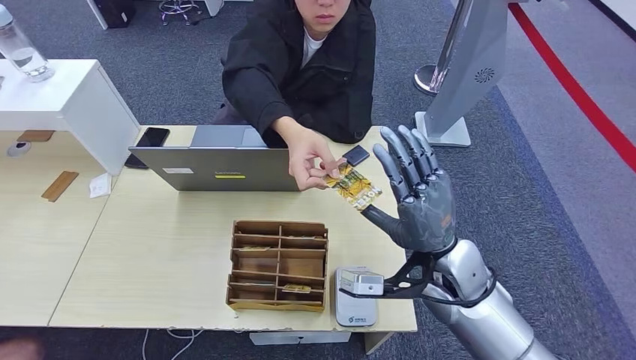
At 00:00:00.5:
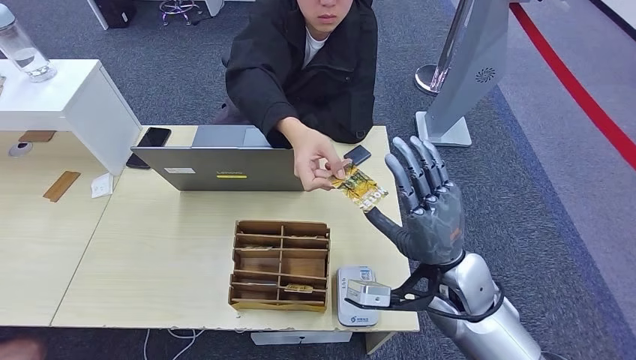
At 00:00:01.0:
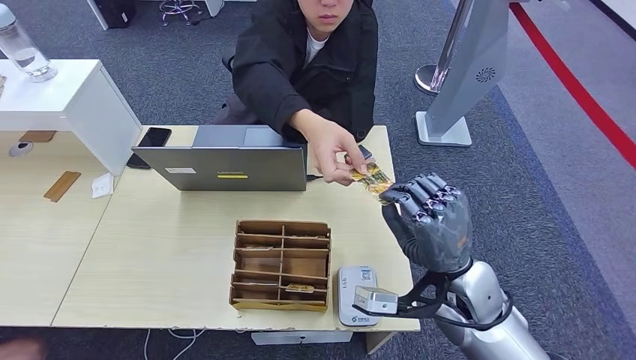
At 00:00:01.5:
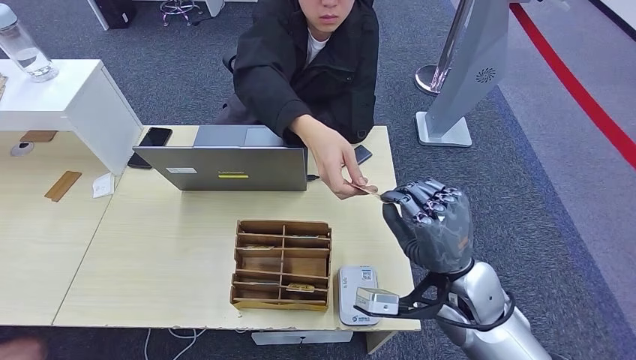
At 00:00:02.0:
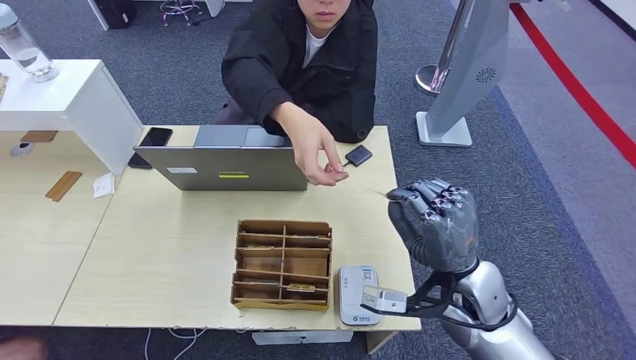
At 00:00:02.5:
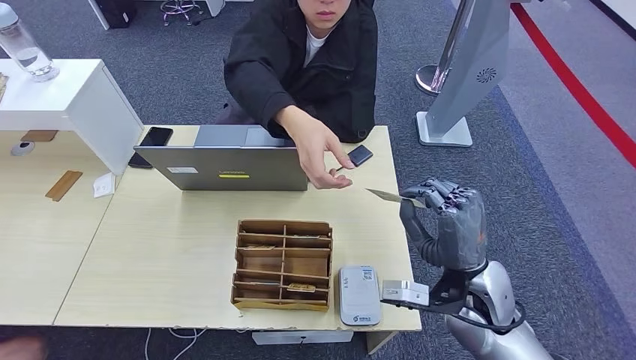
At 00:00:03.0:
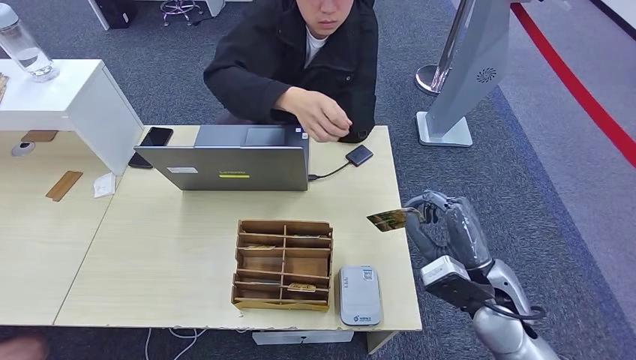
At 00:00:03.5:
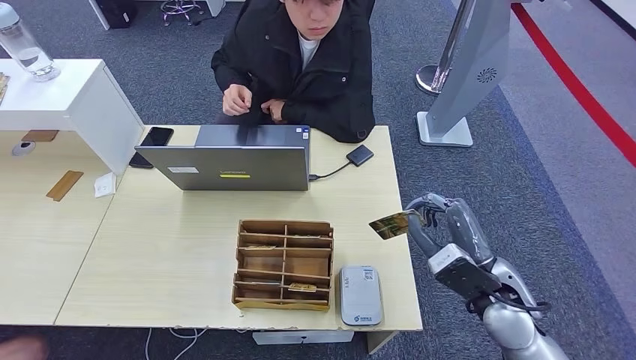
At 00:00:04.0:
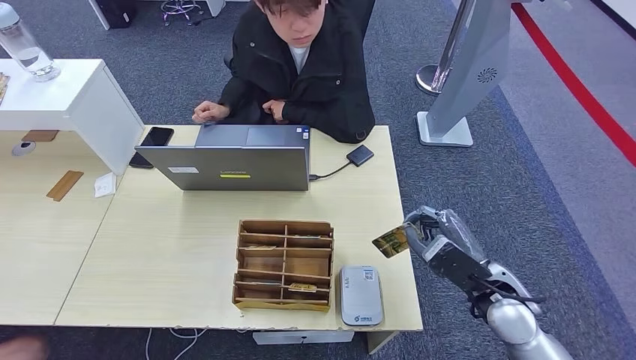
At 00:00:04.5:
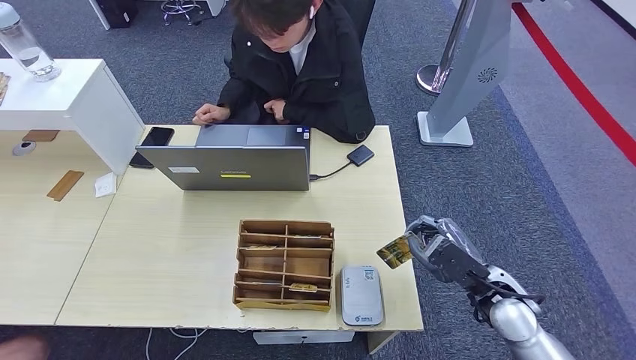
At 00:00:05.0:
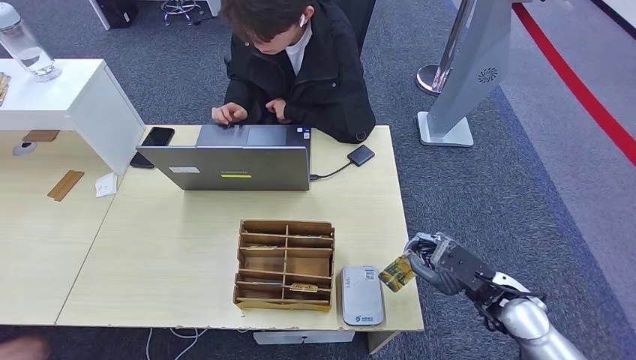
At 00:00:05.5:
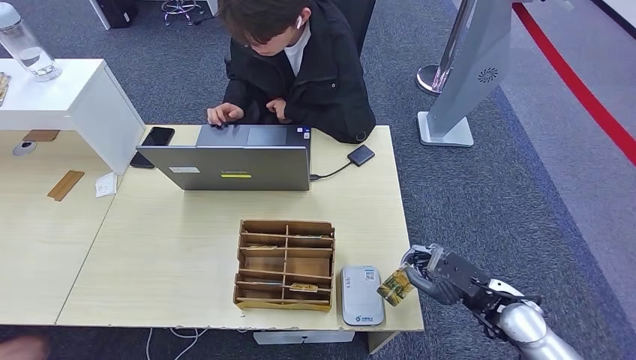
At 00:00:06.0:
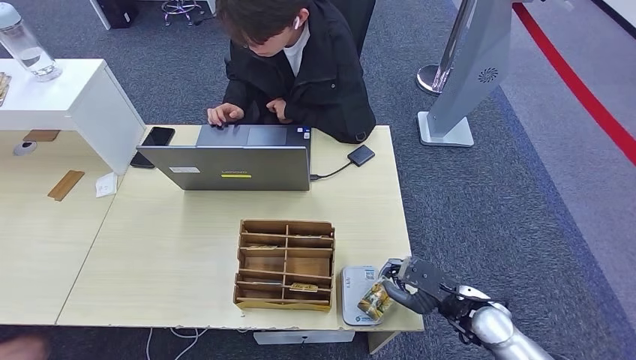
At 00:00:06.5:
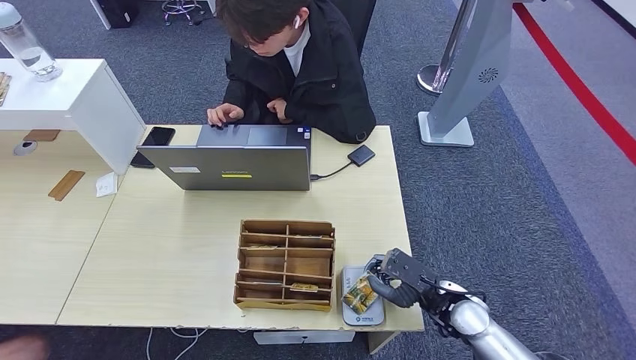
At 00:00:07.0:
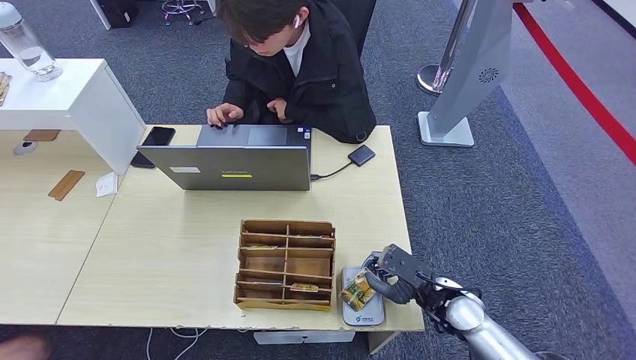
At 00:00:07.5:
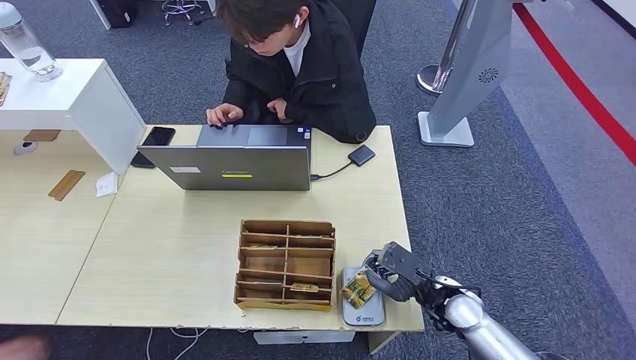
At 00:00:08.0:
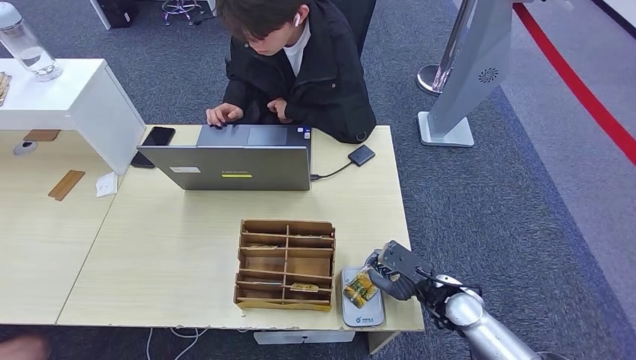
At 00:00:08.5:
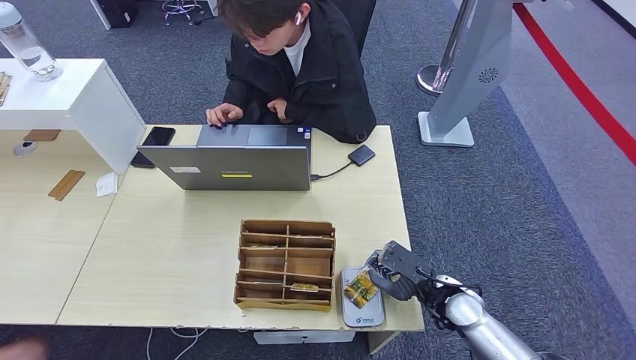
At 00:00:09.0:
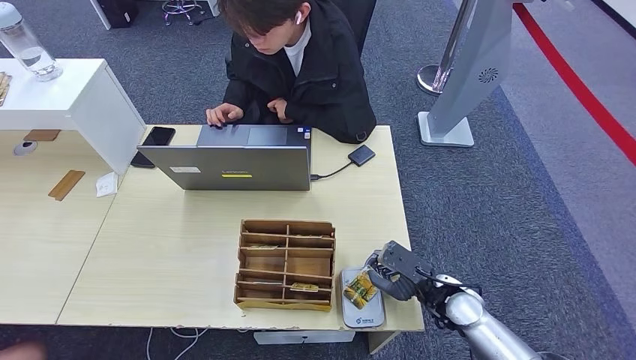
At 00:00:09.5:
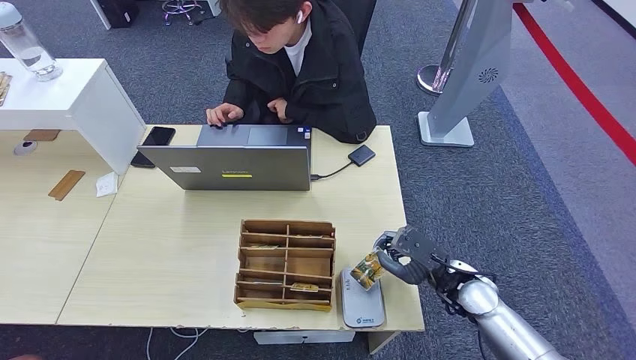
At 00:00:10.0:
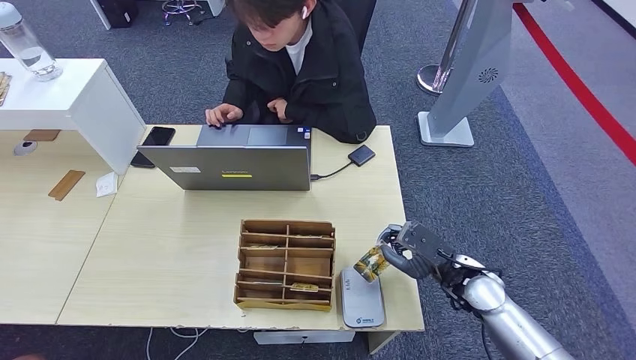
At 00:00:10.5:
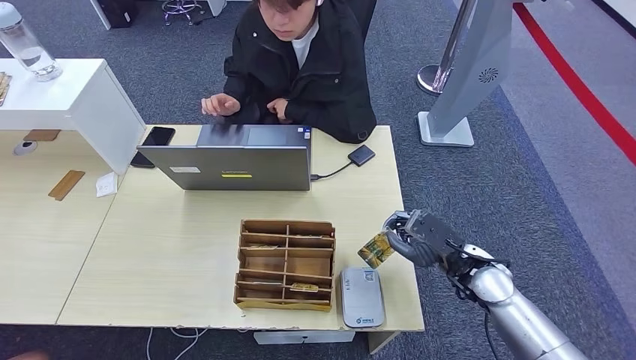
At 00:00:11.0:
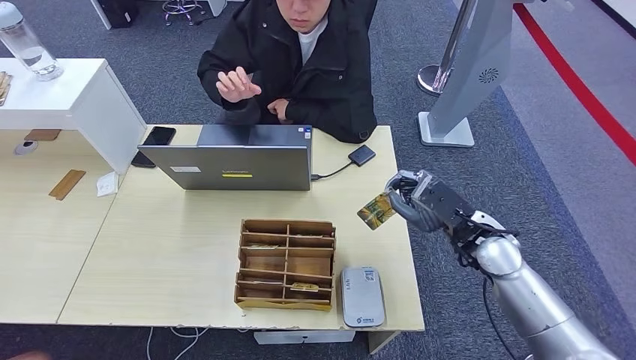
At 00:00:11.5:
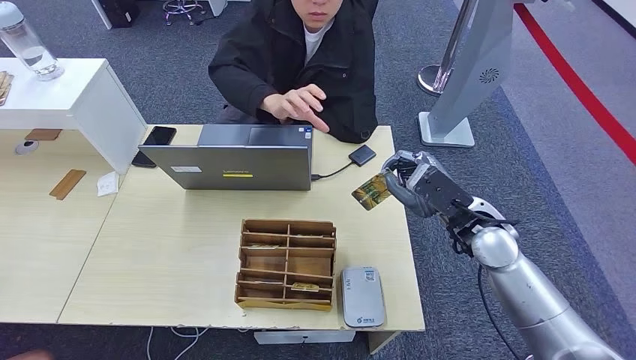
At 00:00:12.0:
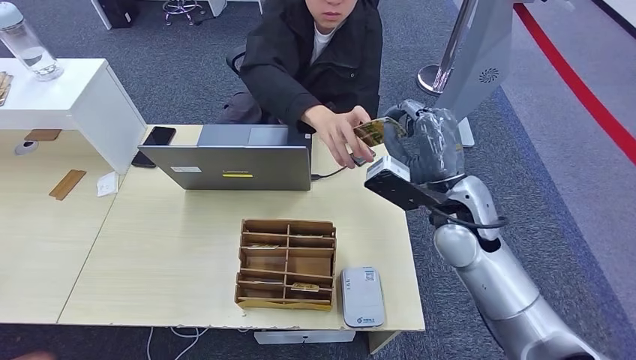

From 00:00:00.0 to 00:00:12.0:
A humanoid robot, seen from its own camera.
Step, from 00:00:00.0 to 00:00:02.0: Take the ID card from the person's hand.
Step, from 00:00:02.5 to 00:00:07.5: Place the ID card on the card reader.
From 00:00:00.0 to 00:00:02.0: The hands stay close to where they were, moving slightly.
From 00:00:02.0 to 00:00:04.0: The right hand travels to the right by roughly 5 cm.
From 00:00:04.0 to 00:00:06.0: The right hand goes some 10 cm downward.
From 00:00:06.0 to 00:00:08.0: The hands stay close to where they were, moving slightly.
From 00:00:08.0 to 00:00:10.0: The right hand moves about 5 cm.
From 00:00:10.0 to 00:00:12.0: The right hand shifts approximately 15 cm upward.

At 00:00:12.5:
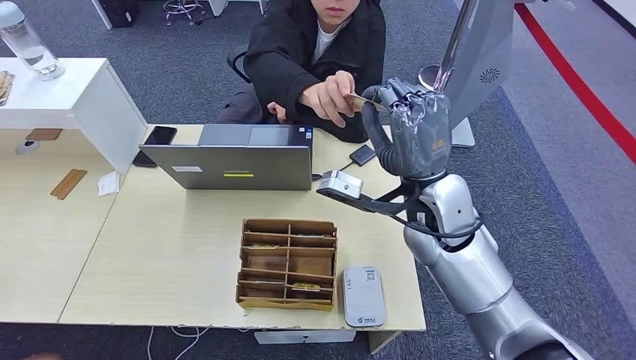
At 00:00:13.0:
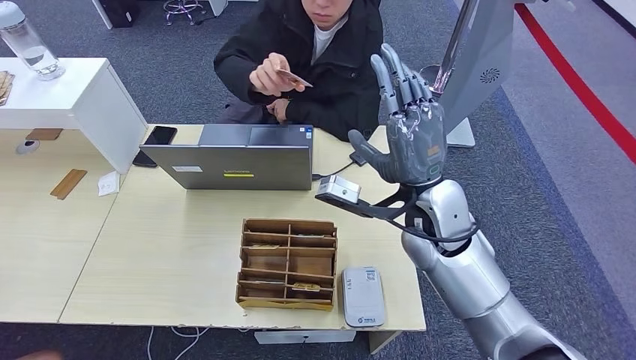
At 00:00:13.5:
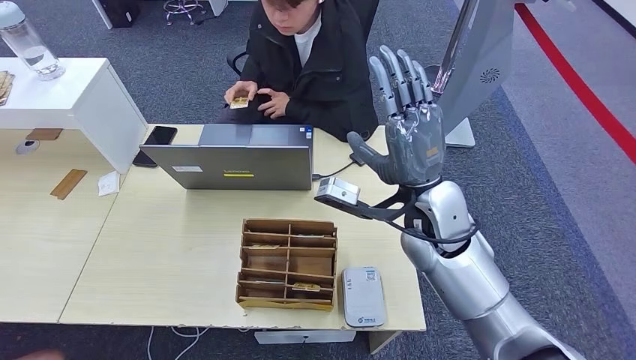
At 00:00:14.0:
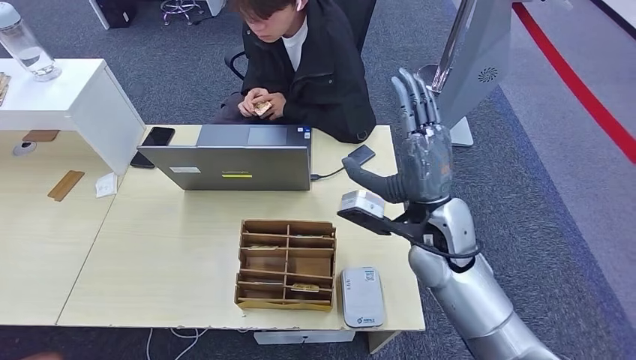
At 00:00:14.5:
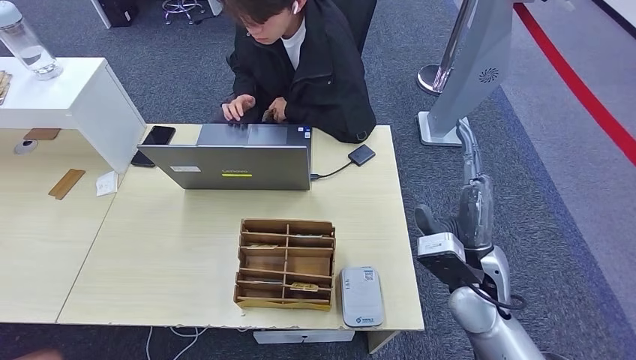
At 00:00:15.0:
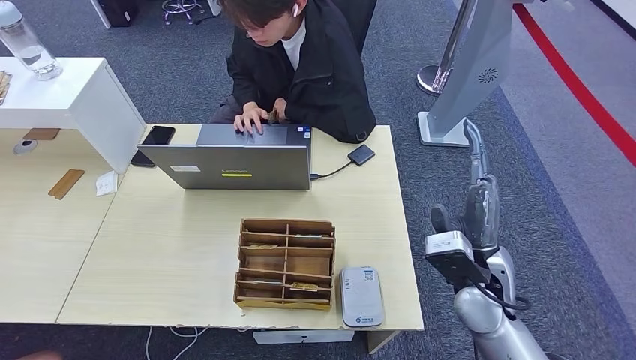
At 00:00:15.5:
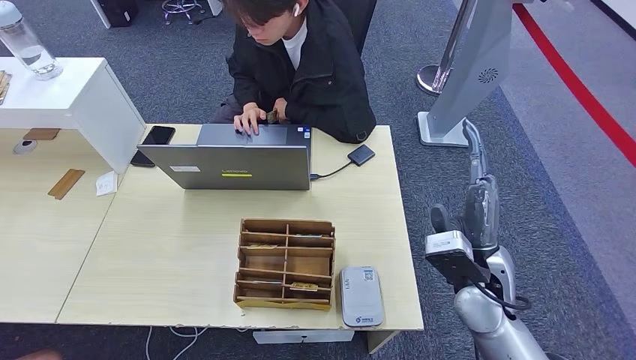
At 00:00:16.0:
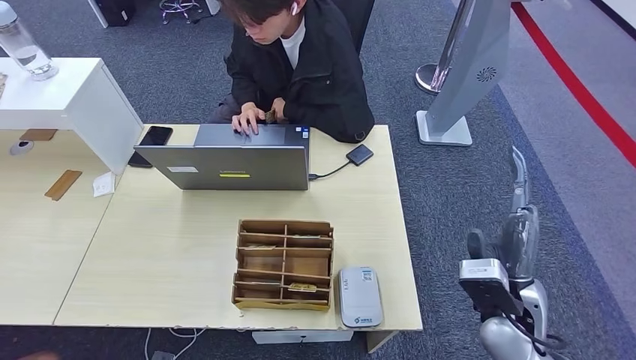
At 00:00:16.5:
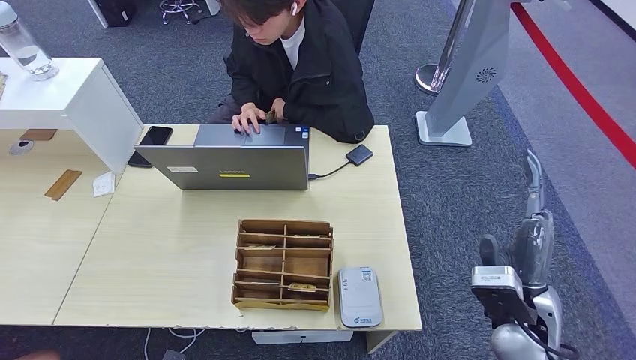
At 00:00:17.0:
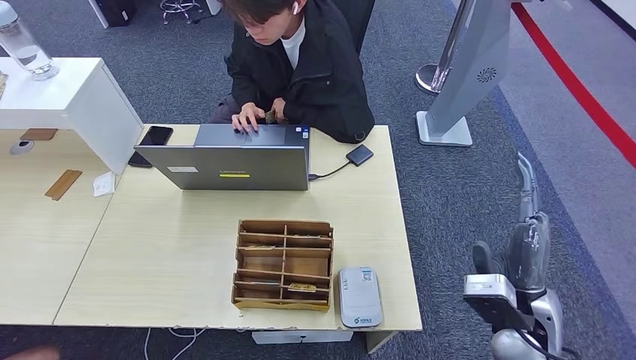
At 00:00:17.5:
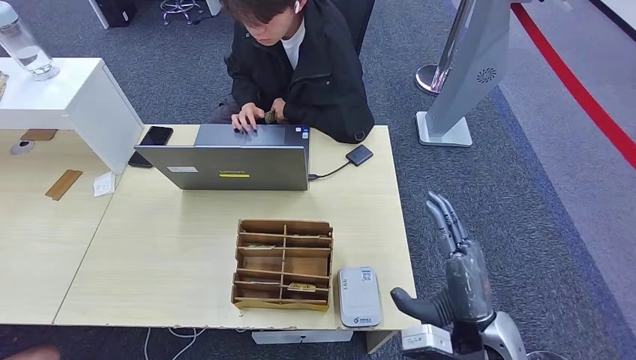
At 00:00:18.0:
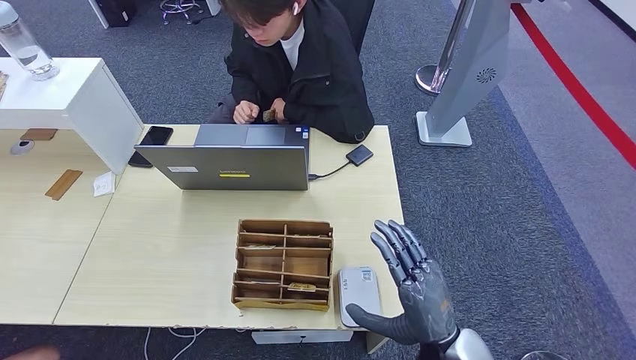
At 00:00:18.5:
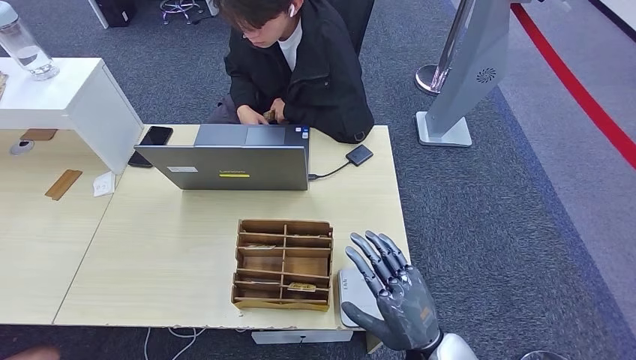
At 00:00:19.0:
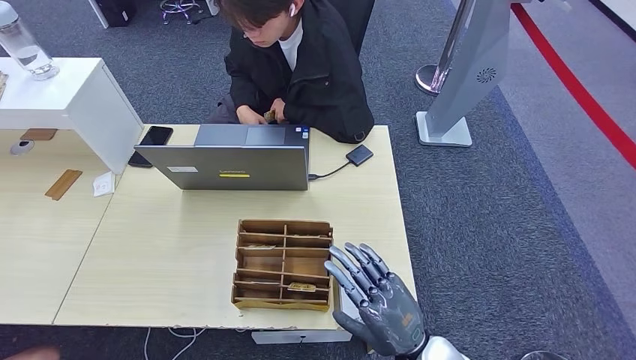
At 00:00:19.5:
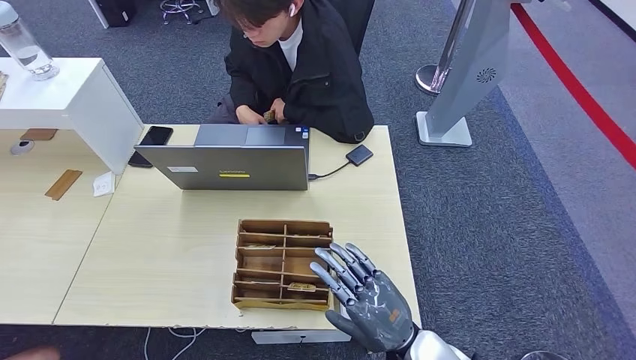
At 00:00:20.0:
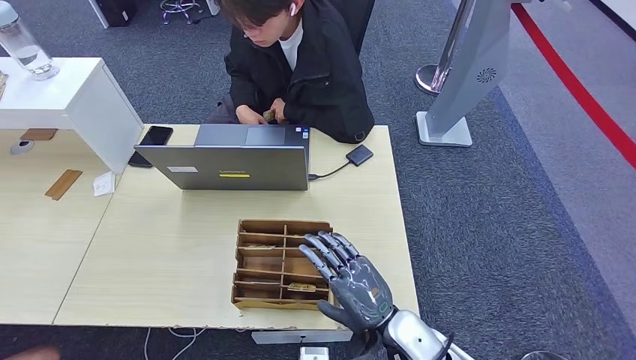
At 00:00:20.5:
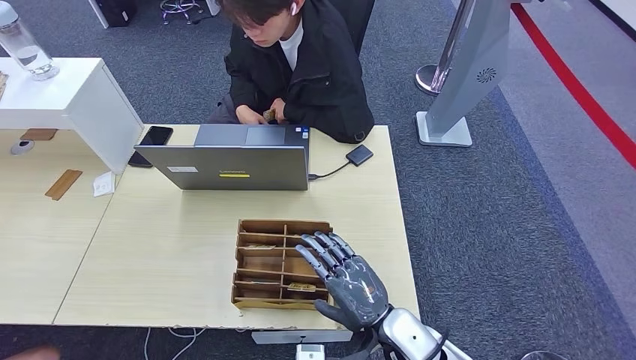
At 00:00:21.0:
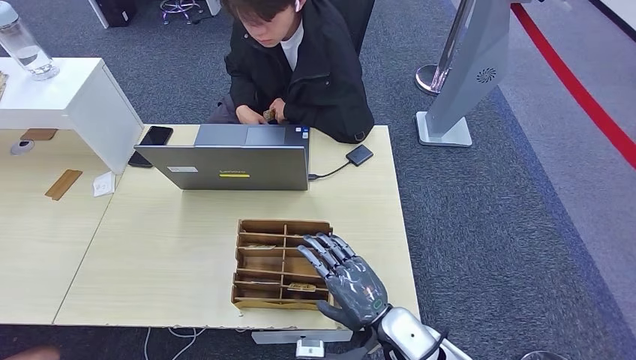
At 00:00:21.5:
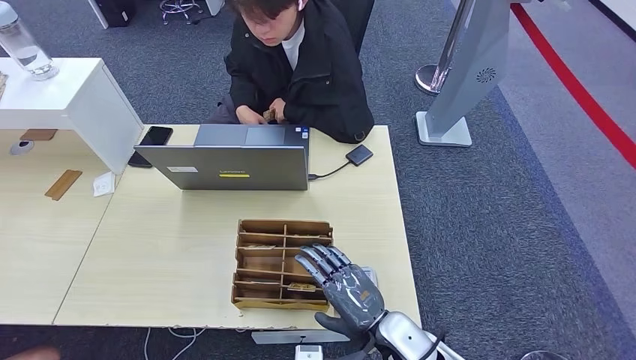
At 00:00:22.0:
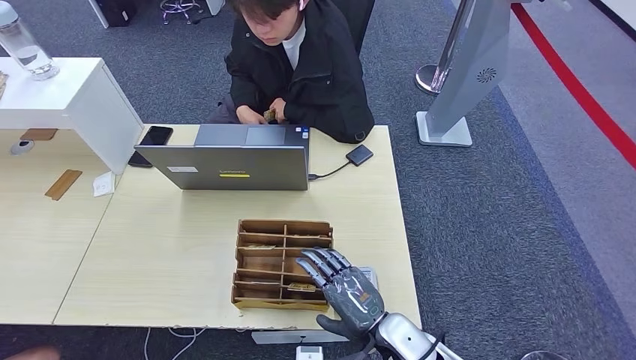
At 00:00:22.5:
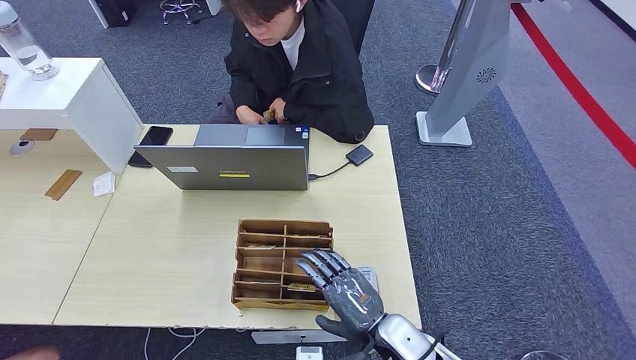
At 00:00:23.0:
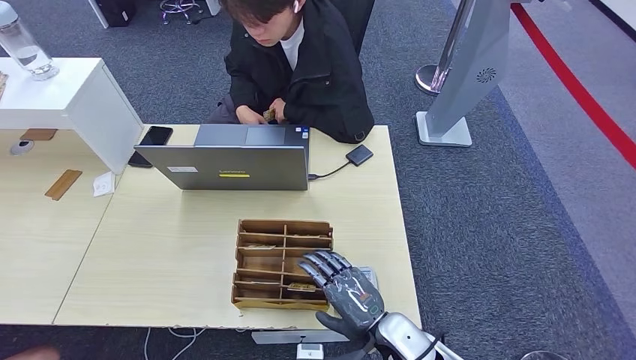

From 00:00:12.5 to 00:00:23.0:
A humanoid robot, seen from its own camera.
From 00:00:12.5 to 00:00:14.5: The right hand is displaced downward, backward and to the right by about 15 cm.
From 00:00:14.5 to 00:00:16.5: The right hand heads backward and to the right, covering roughly 10 cm.
From 00:00:16.5 to 00:00:19.0: The right hand goes about 15 cm to the left, downward and backward, while the left hand goes some 5 cm to the right.
From 00:00:19.0 to 00:00:21.0: The right hand changes place by about 5 cm.
From 00:00:21.0 to 00:00:23.0: The hands move only a little.
